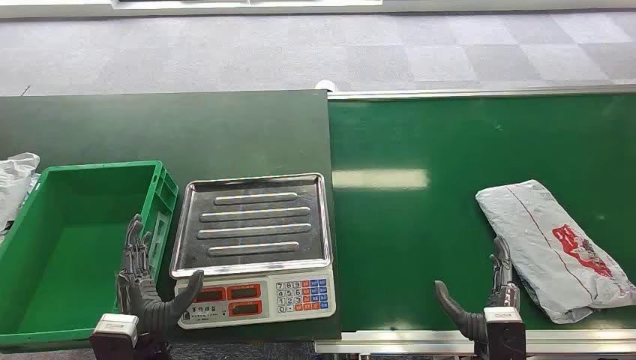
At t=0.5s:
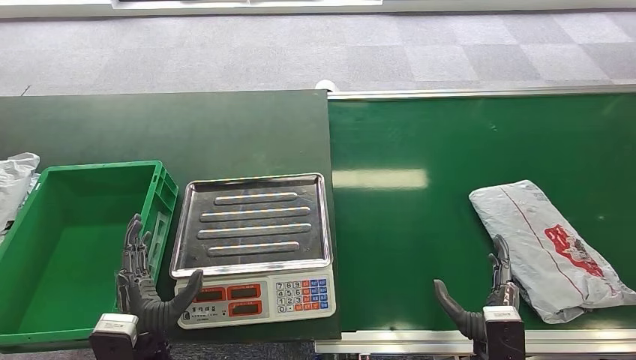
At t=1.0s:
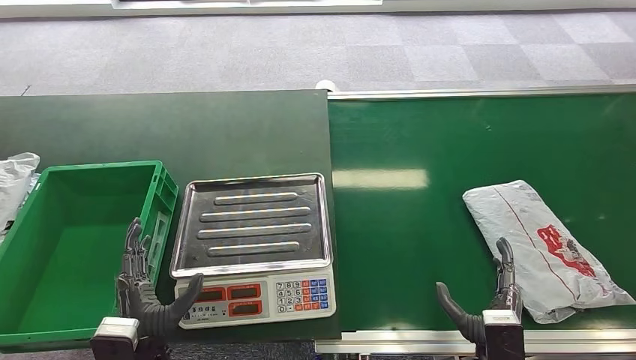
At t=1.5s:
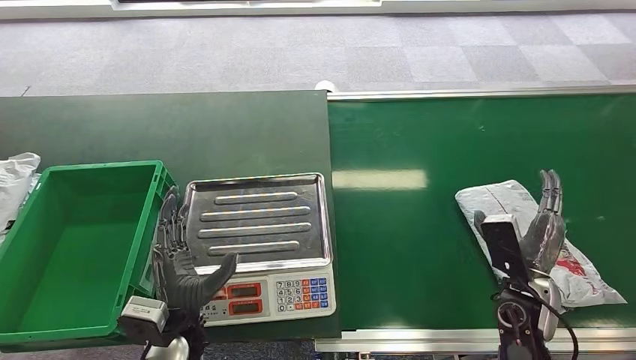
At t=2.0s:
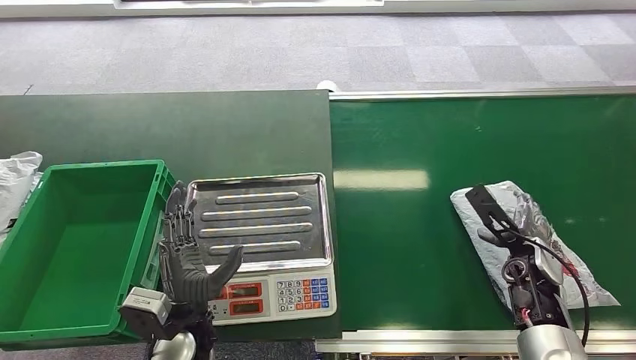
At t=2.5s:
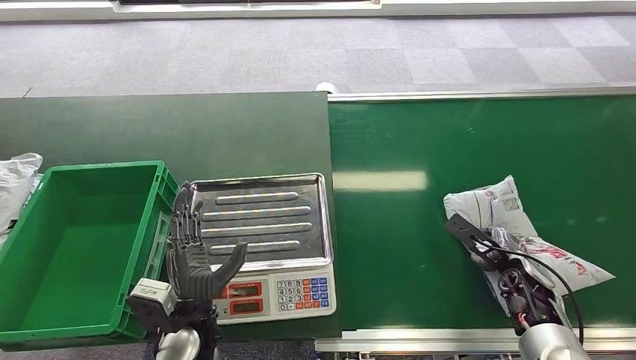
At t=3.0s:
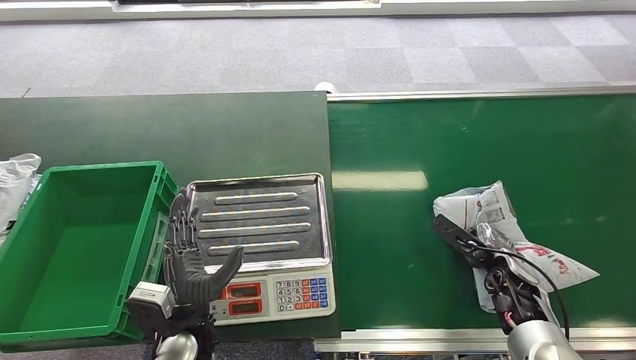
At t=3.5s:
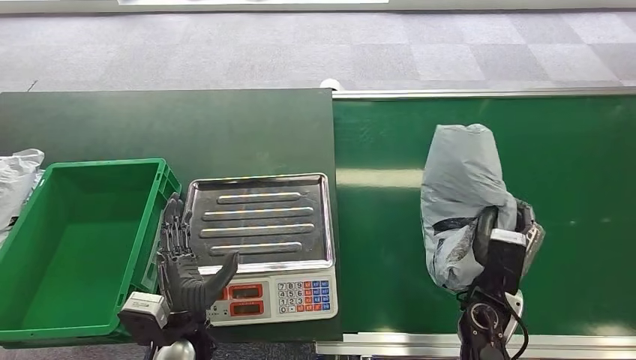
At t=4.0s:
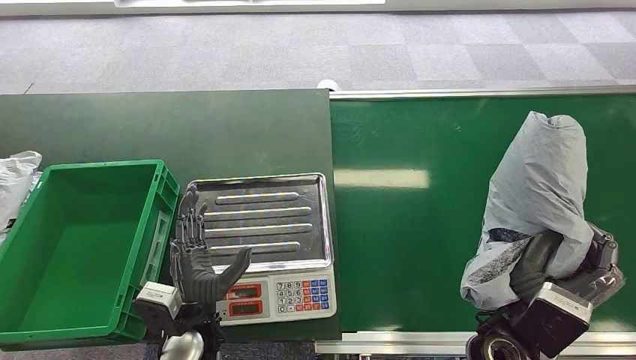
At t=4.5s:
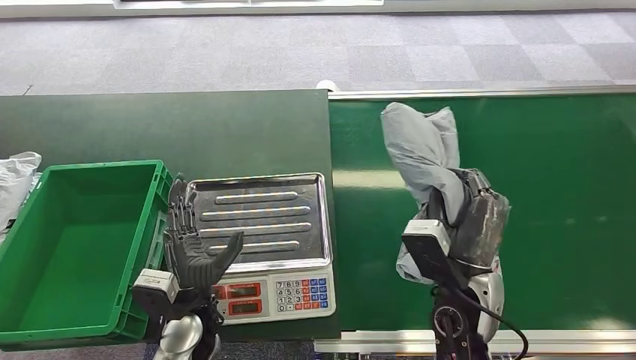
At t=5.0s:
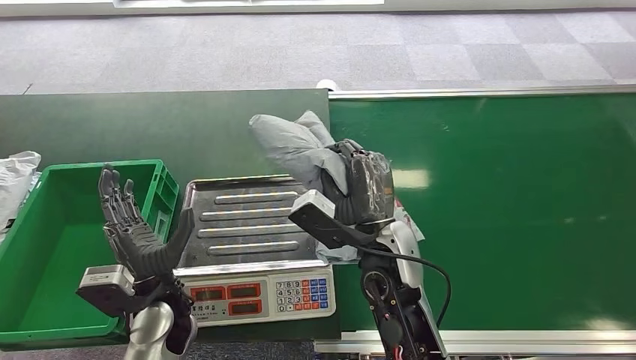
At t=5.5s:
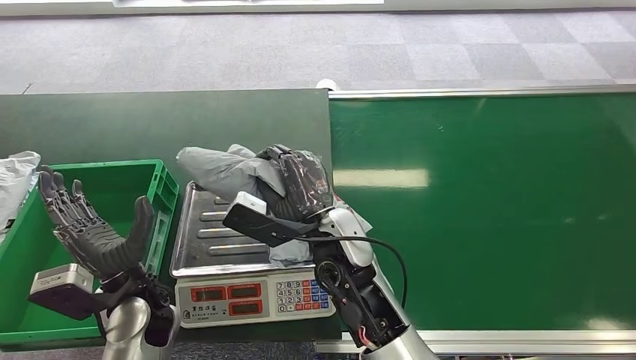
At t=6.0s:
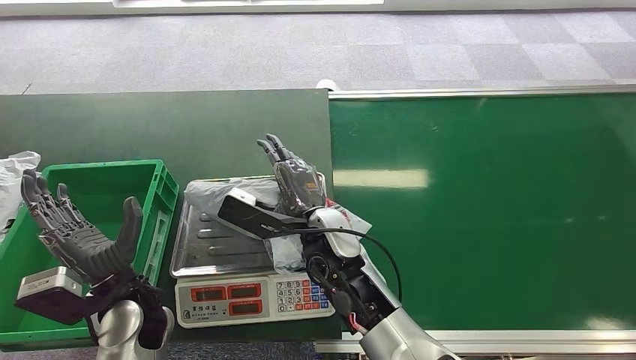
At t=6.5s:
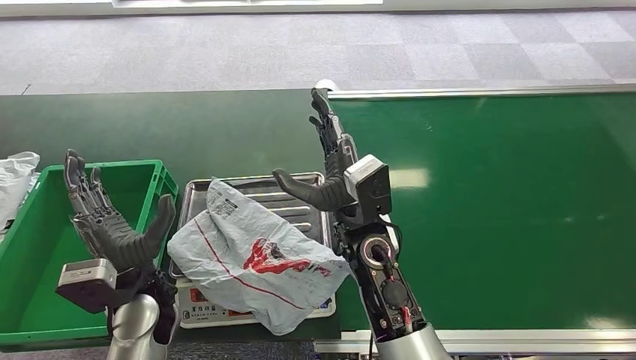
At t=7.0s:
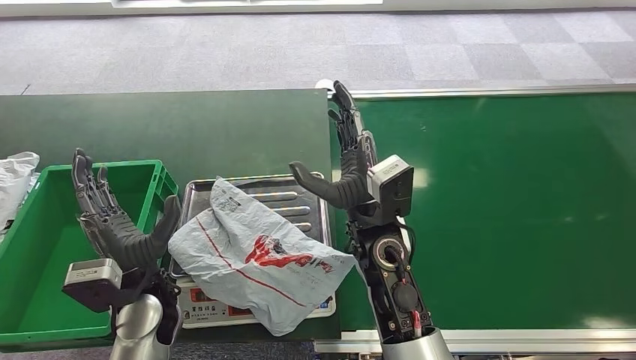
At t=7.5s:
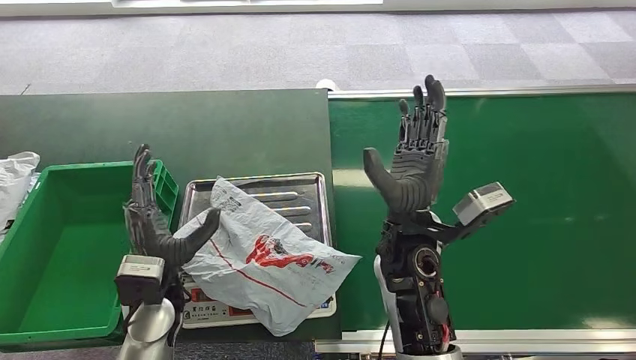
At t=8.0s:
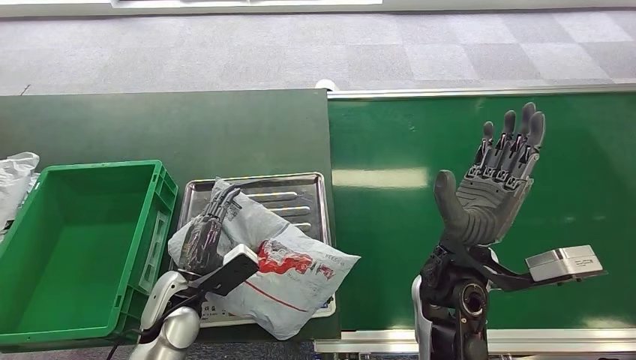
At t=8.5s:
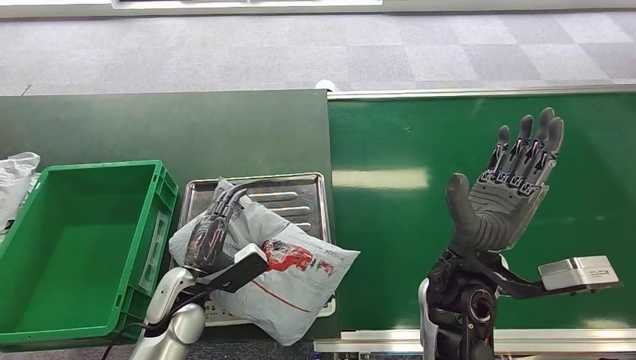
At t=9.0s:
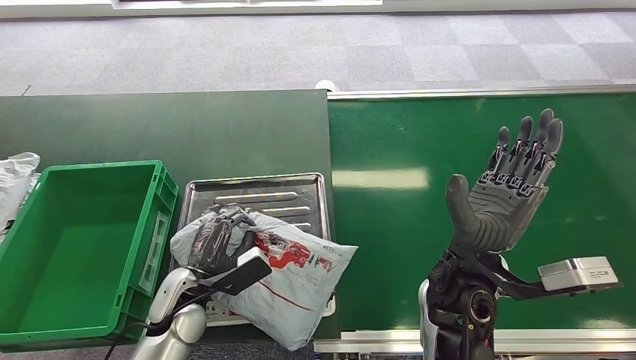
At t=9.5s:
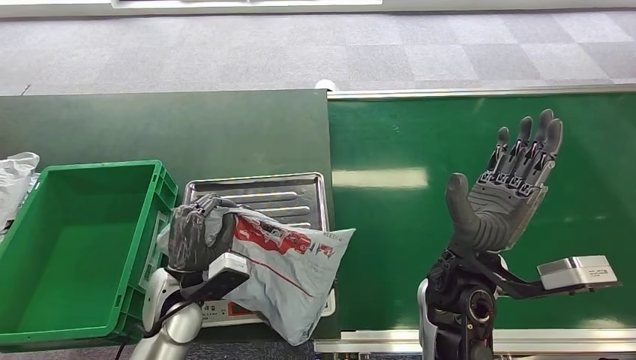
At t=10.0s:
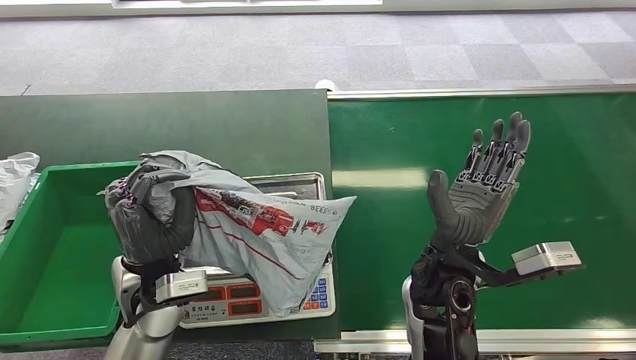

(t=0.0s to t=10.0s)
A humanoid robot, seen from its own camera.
Task of the whole recording: Weigh the package on the weighing device and place it in the left basket.
Step, t=0.0s - t=3.5s: Pick up the package from the conveyor belt.
Step, t=4.5s - t=6.0s: Place the package onto the inbound machine.
Step, t=8.5s - t=9.5s: Pick up the package from the inbound machine.
t=2.0s - t=4.0s: The right hand travels to the left and backward by some 20 cm.
t=8.0s - t=10.0s: The left hand heads upward, covering approximately 10 cm.

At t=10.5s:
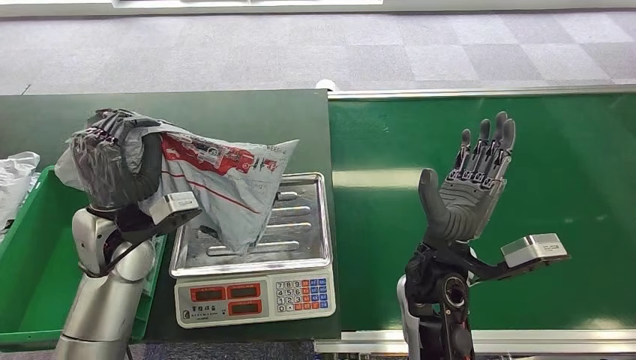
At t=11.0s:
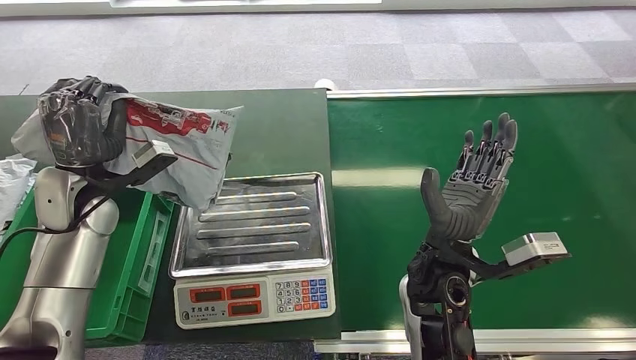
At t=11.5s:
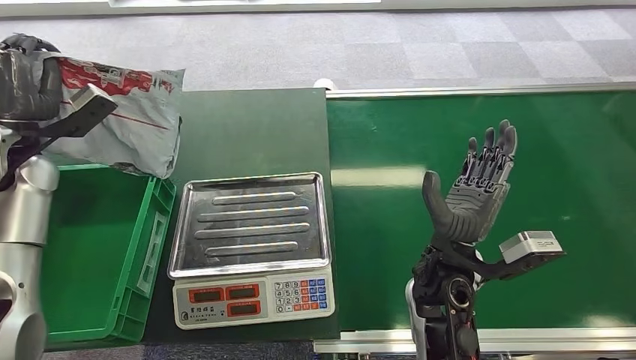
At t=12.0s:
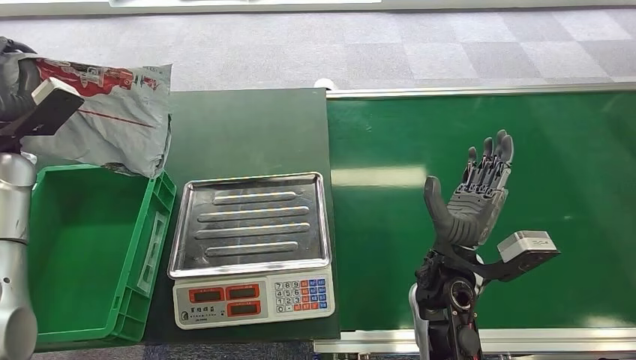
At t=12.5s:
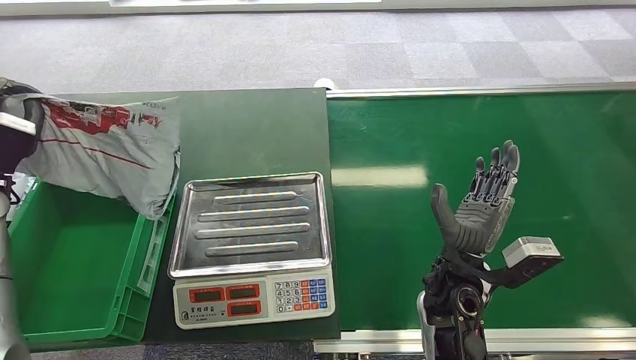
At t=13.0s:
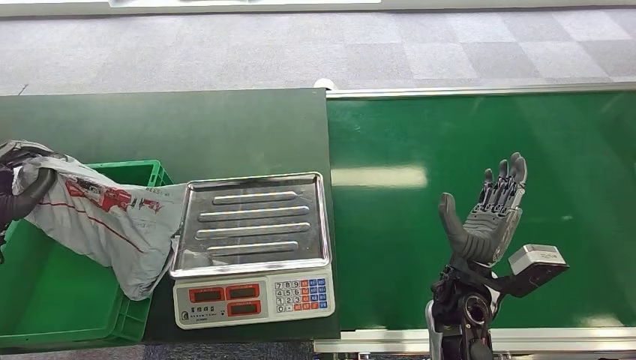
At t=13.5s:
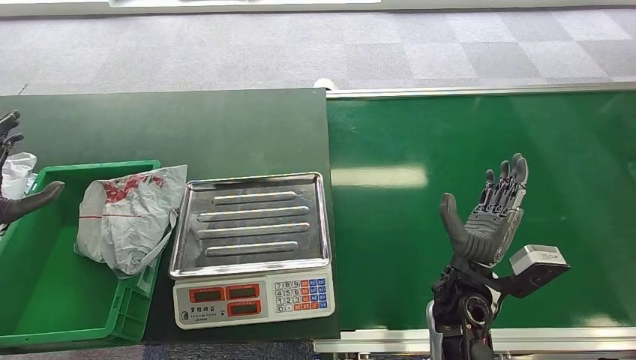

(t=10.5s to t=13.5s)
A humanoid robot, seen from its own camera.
Task of the whole recording: Weigh the package on the weighing device and place it in the left basket.
Step, t=11.5s - t=13.5s: Place the package into the parcel locker.
t=12.0s - t=13.5s: The left hand heads backward, downward and to the left, covering roughly 15 cm.

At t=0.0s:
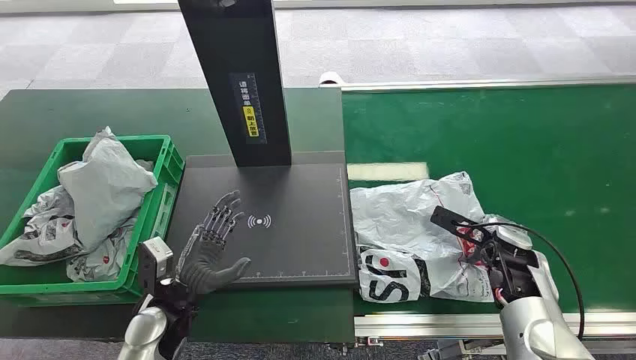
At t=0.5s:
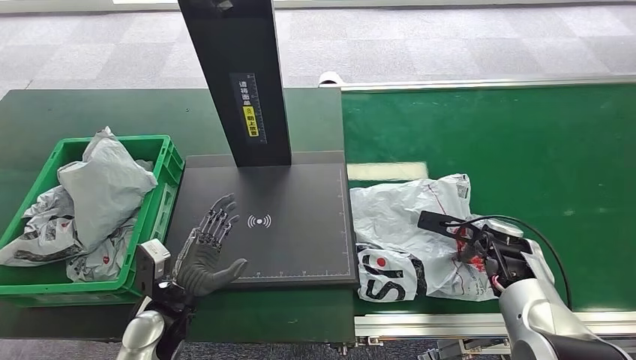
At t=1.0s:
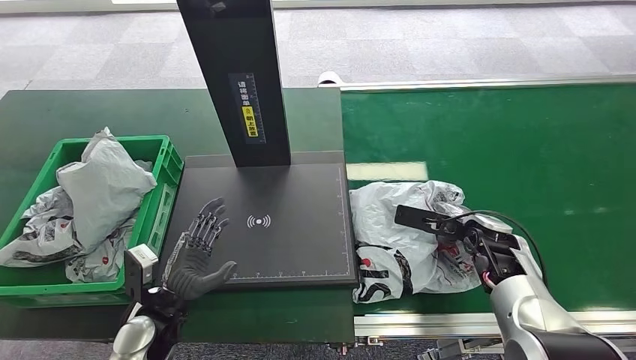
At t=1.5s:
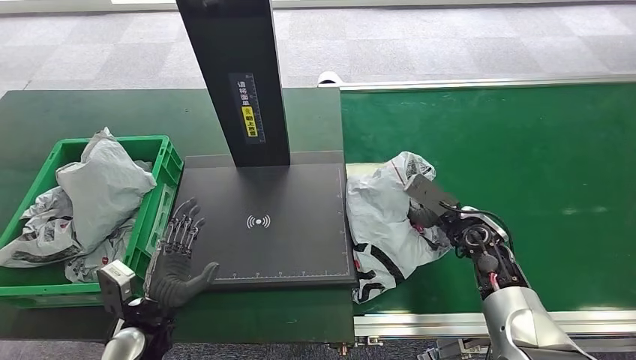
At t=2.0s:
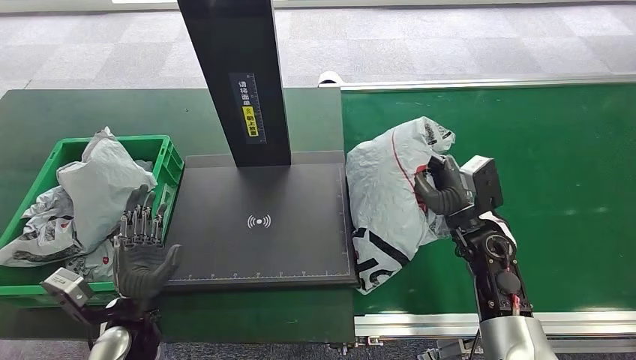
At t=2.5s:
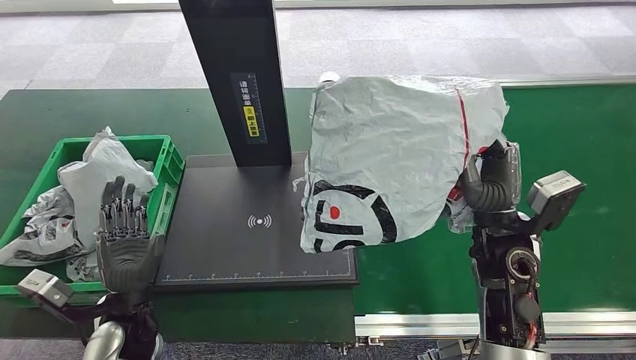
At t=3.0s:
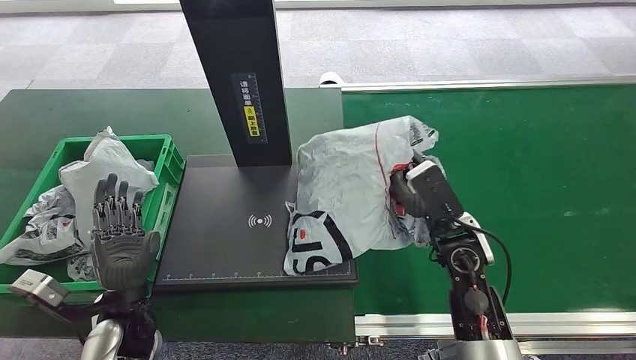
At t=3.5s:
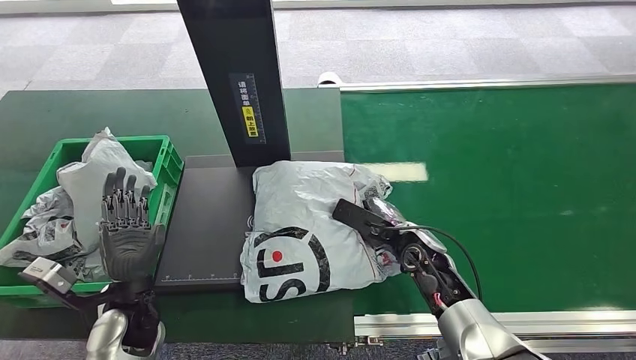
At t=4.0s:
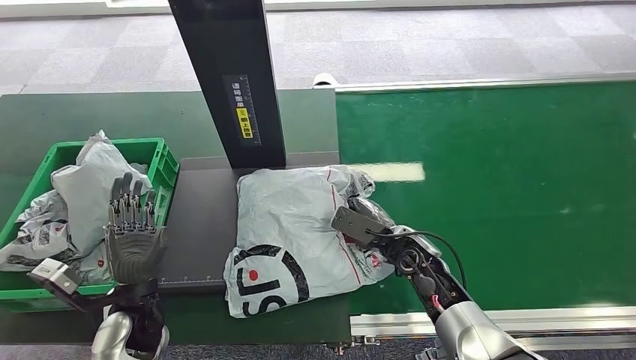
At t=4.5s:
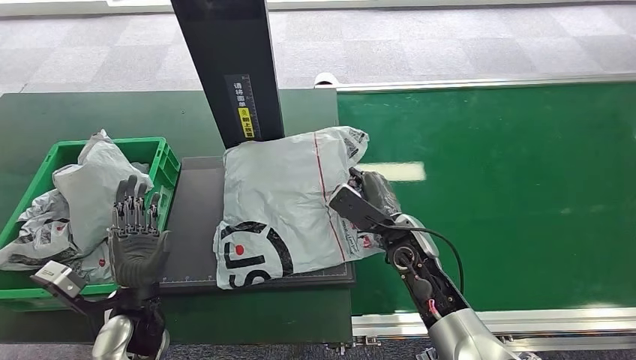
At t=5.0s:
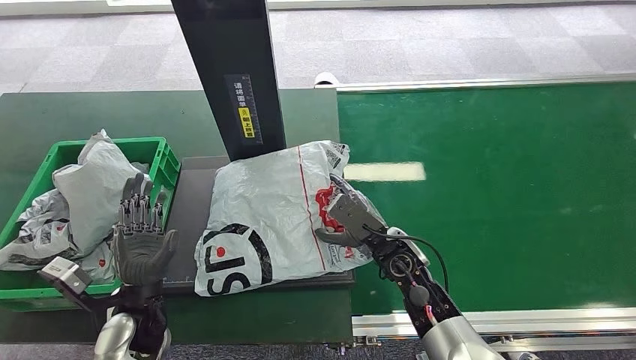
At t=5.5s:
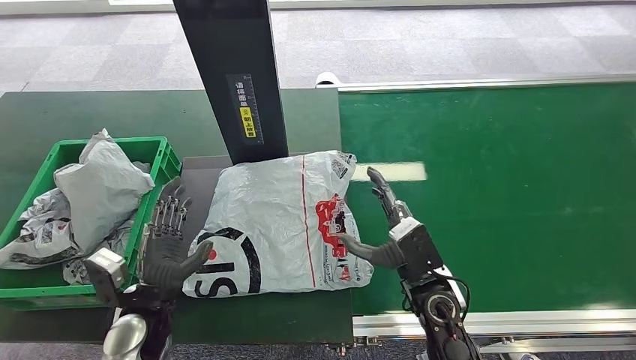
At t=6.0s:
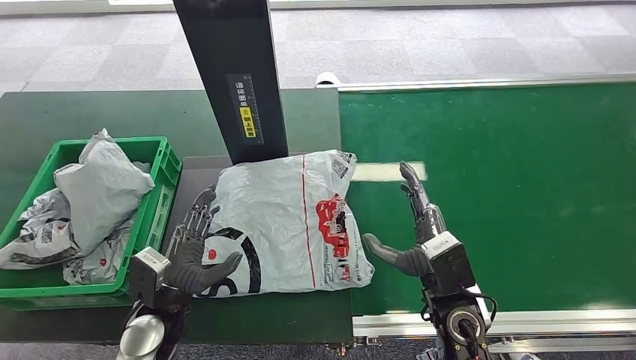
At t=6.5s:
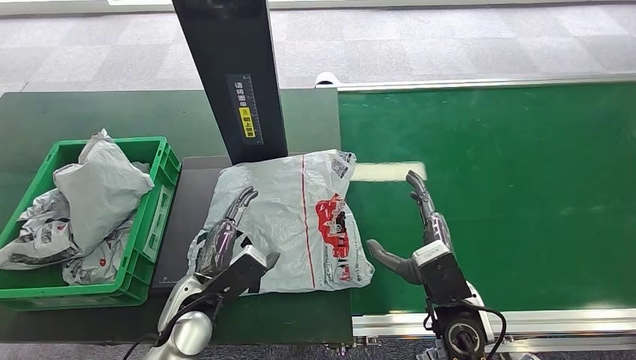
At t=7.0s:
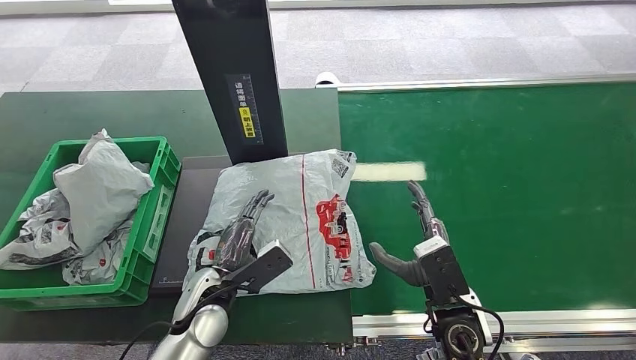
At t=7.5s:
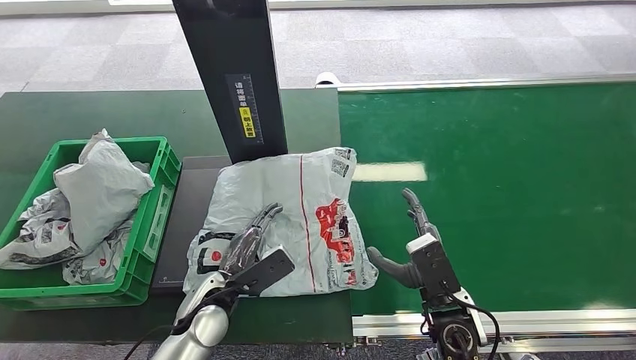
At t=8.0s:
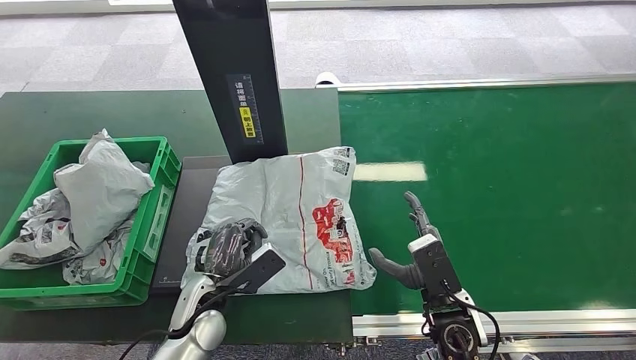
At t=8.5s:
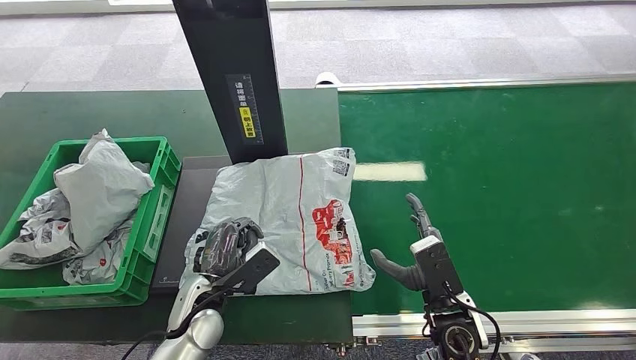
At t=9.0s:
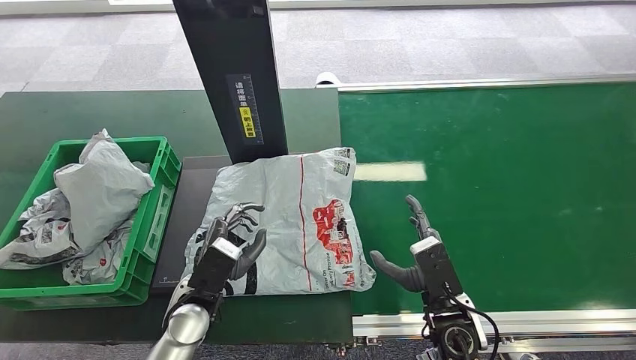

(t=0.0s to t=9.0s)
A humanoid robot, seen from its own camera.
Task of the whole recording: Weigh the package on the weighing device and place it in the left basket.
Step, t=0.0s - t=2.5s: Pick up the package from the conveyor belt.
Step, t=3.0s - t=5.5s: Place the package onto the inbound machine.
t=4.5s - t=7.0s: The left hand goes some 10 cm to the right. The right hand heads backward, covering about 10 cm.
